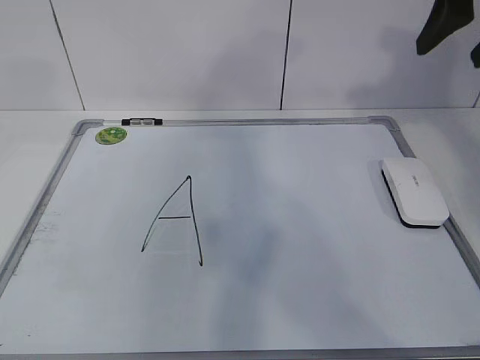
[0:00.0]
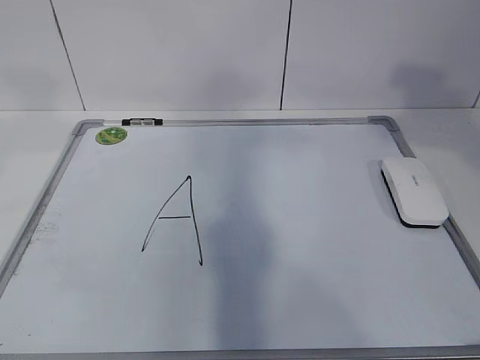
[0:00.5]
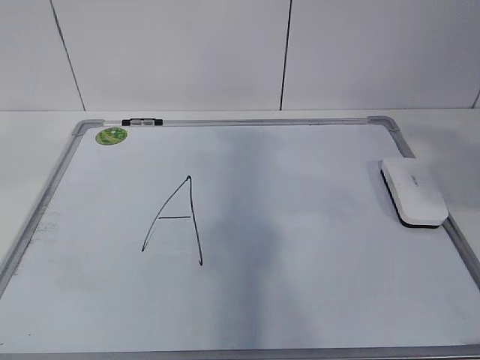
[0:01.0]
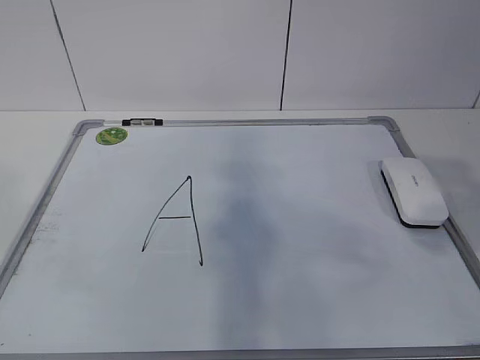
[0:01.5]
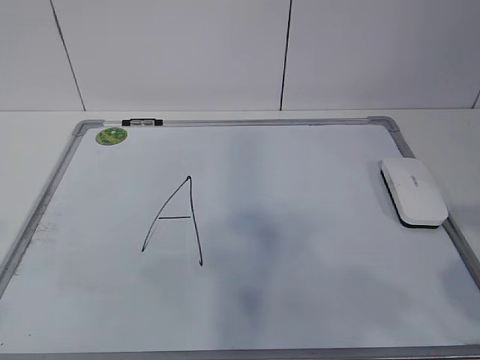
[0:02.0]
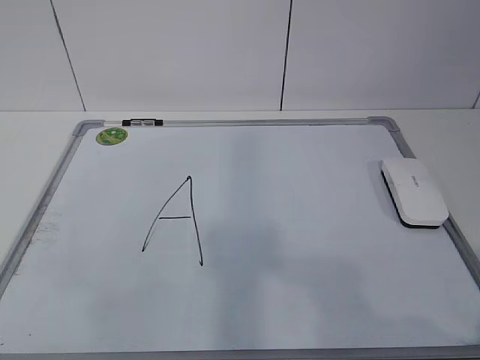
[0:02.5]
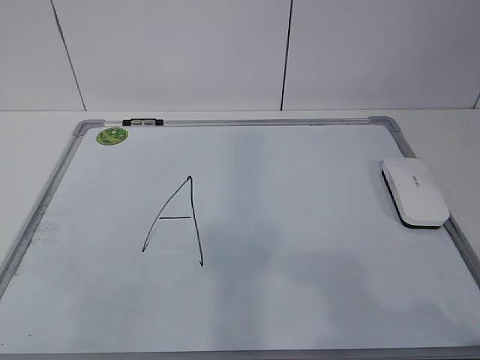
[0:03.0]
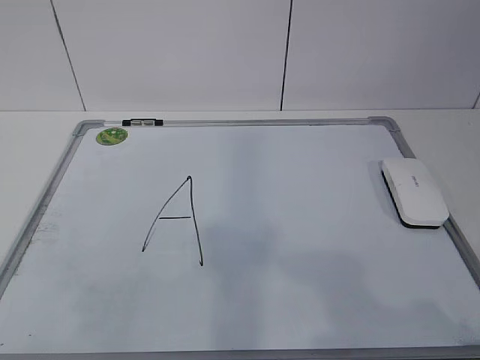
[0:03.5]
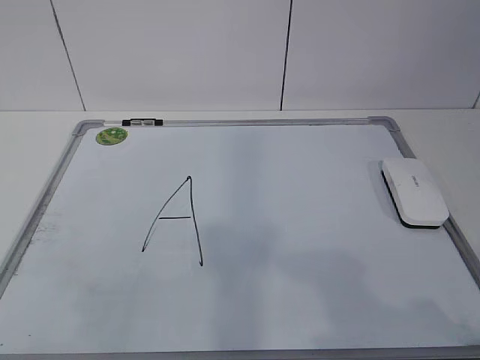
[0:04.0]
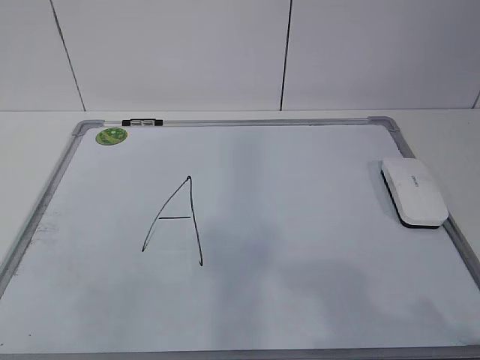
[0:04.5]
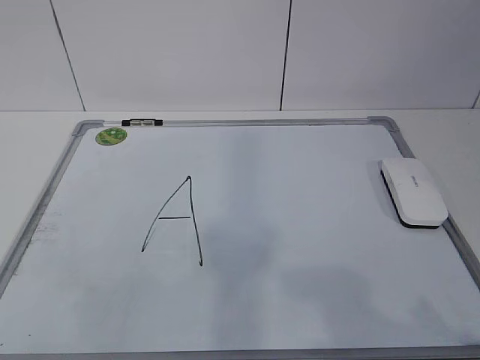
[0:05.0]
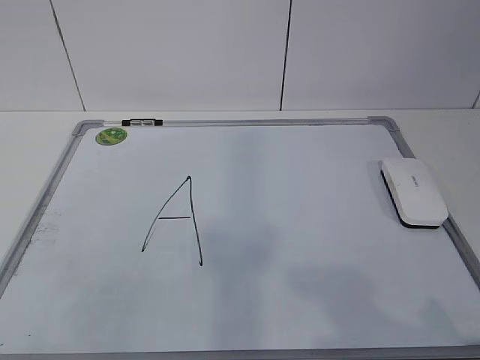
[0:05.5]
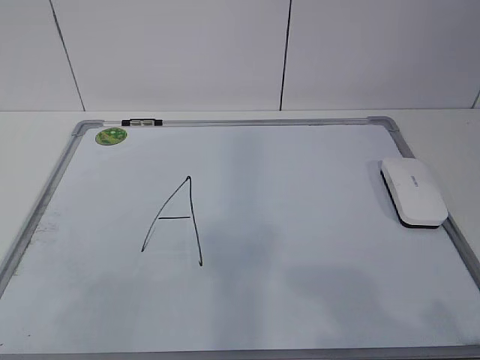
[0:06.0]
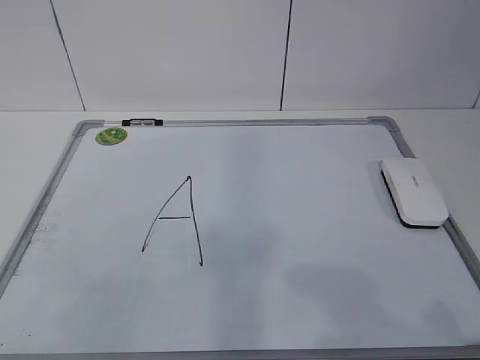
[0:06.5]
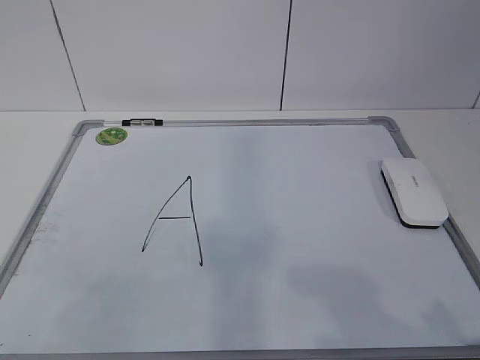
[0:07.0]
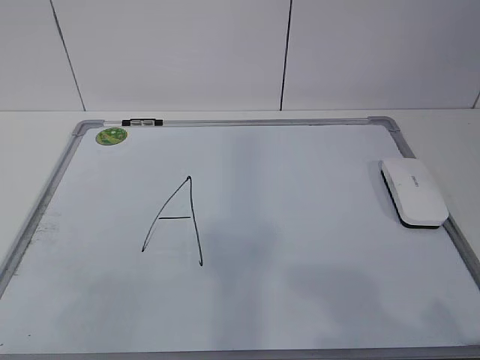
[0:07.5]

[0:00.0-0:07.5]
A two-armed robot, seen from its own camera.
Task of the whole recording: pick up the eraser on the blackboard and erase the letter "a".
0:00.0 to 0:02.0: The right gripper travels backward by approximately 30 cm.

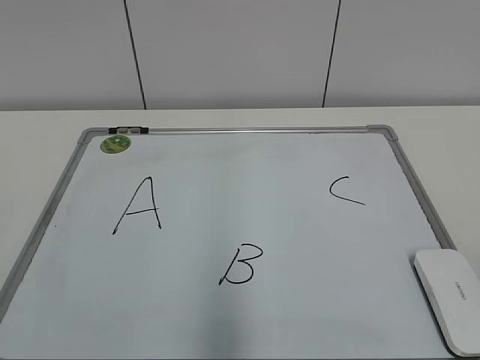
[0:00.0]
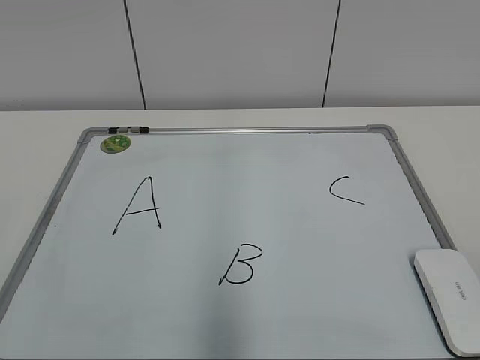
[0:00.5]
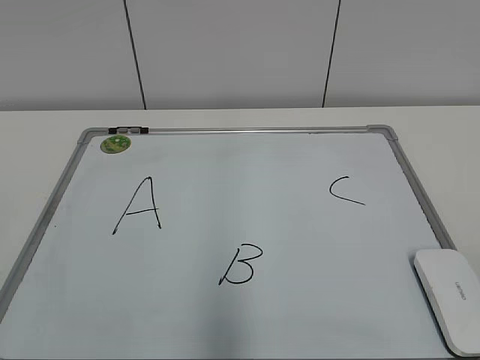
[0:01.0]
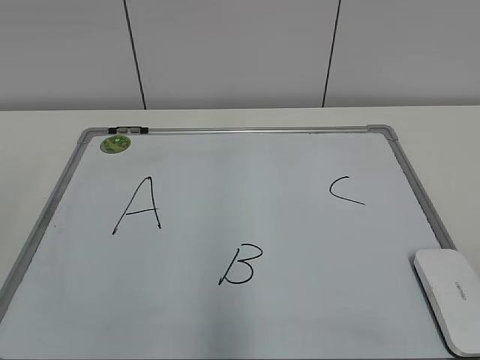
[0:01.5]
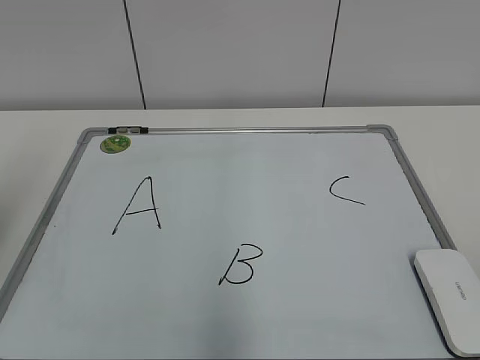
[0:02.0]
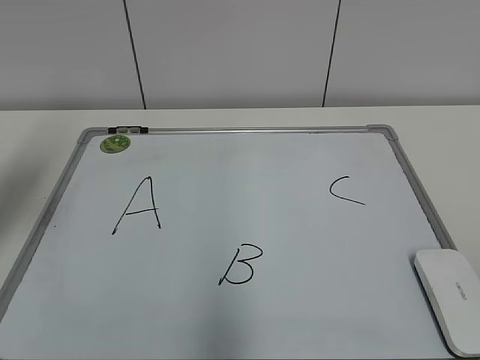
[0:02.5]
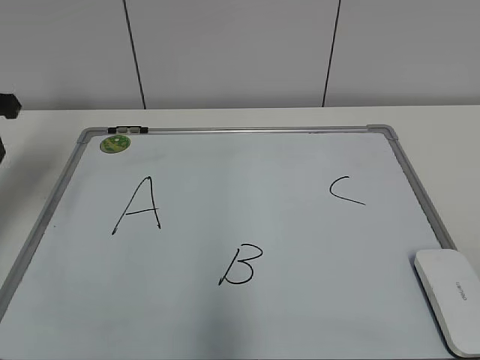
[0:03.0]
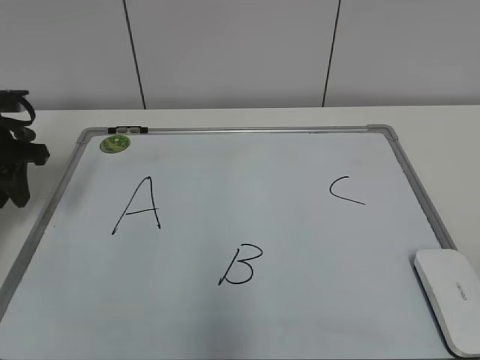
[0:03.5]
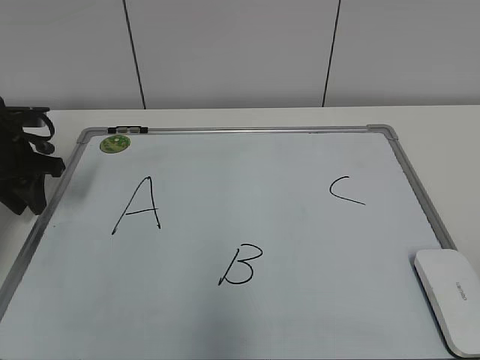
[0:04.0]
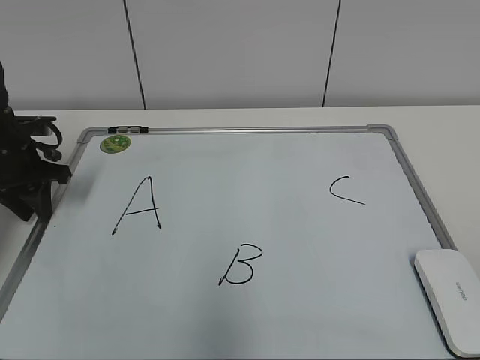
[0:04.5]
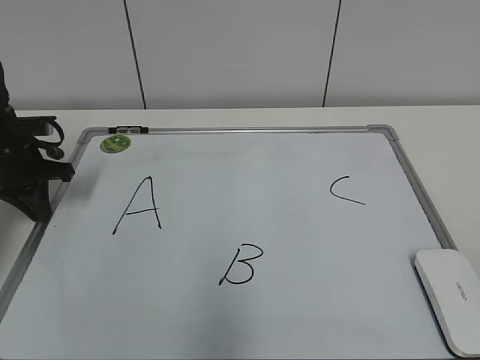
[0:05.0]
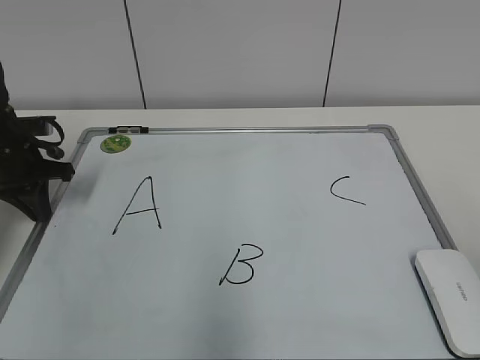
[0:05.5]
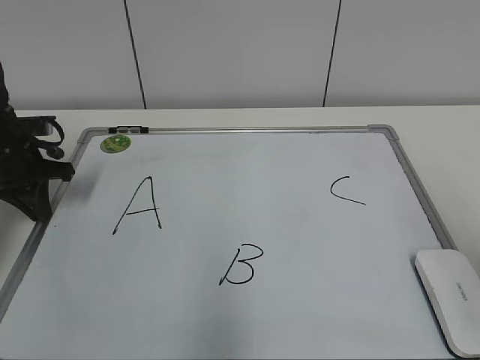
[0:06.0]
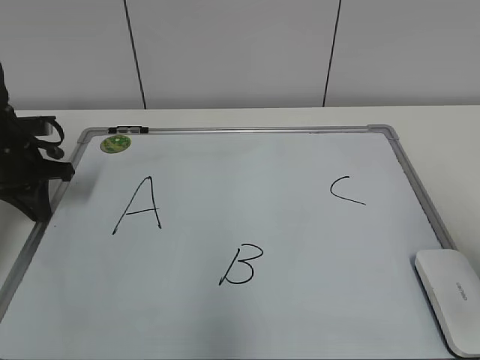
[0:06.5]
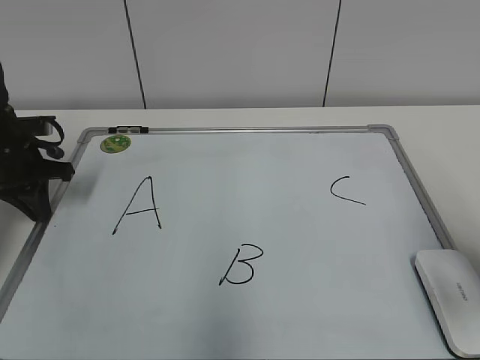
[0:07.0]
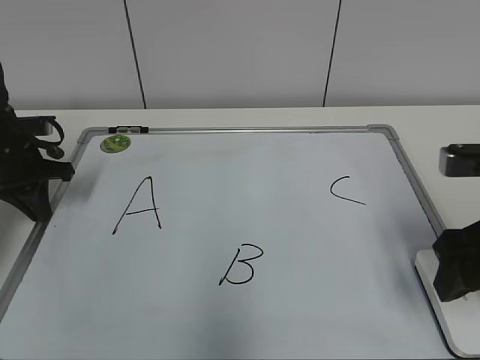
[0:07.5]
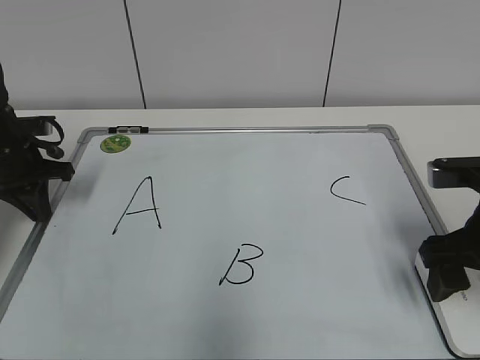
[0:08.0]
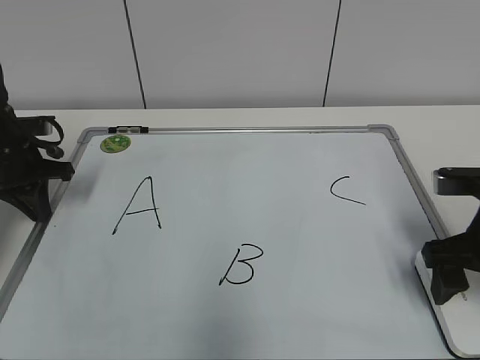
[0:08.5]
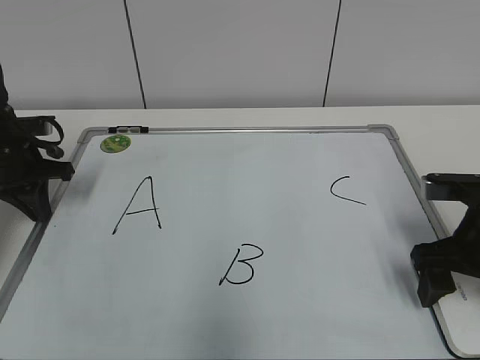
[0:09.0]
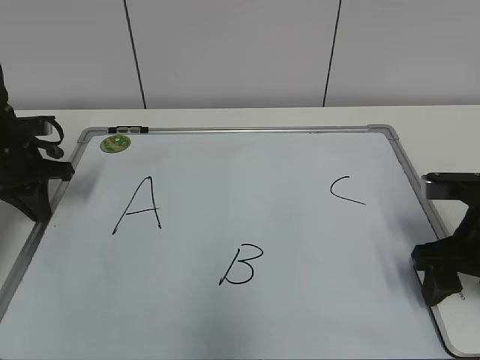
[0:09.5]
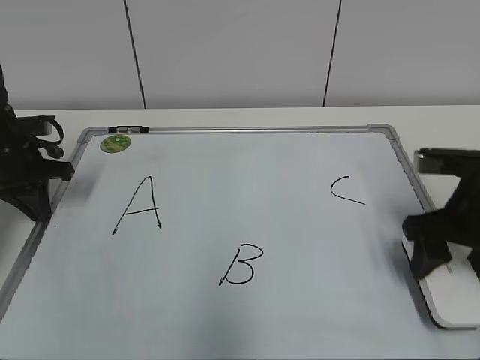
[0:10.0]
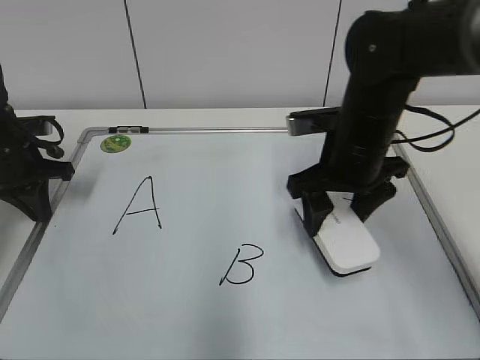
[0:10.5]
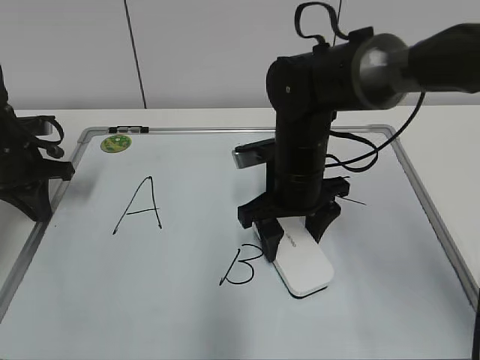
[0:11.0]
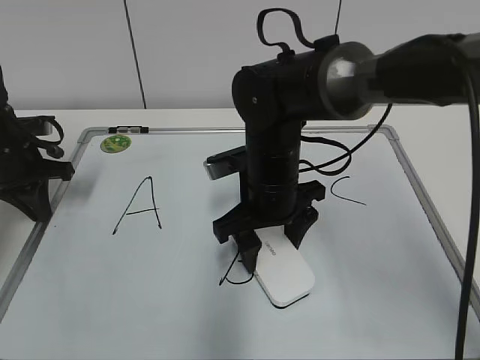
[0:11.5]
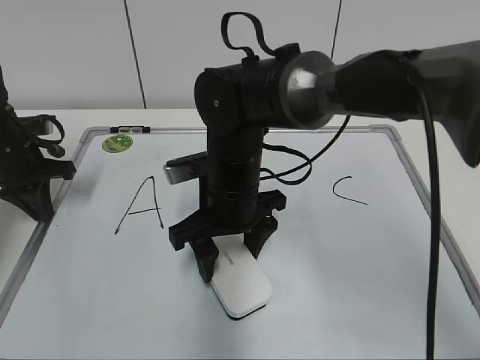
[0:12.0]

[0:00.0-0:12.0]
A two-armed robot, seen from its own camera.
Task of the whole recording: pick up the eraser on the blackboard and erase the letter "B".
Step, 0:00.0 to 0:05.5: Hold the drawing board steady with your left hand.
Step, 0:06.0 to 0:09.5: Grab the eraser with your right hand.
0:02.0 to 0:04.0: The left gripper goes some 25 cm forward and downward.
0:04.0 to 0:06.0: The left gripper closes.
0:06.0 to 0:08.0: The right gripper is displaced forward and downward by approximately 20 cm, and opens its fingers.
0:08.0 to 0:10.0: The right gripper closes up.
0:10.0 to 0:12.0: The right gripper is displaced to the left by some 25 cm.

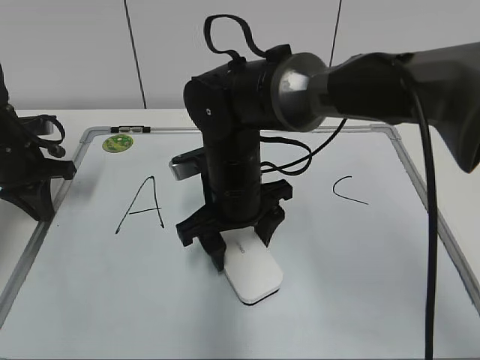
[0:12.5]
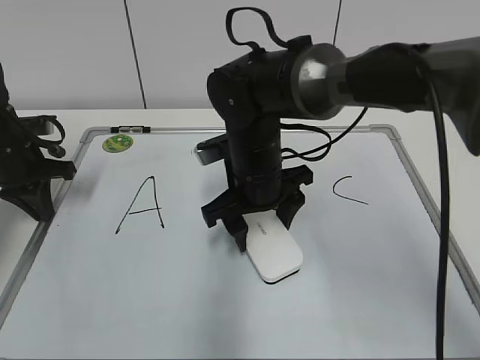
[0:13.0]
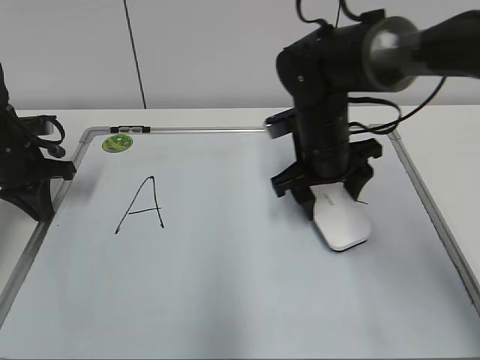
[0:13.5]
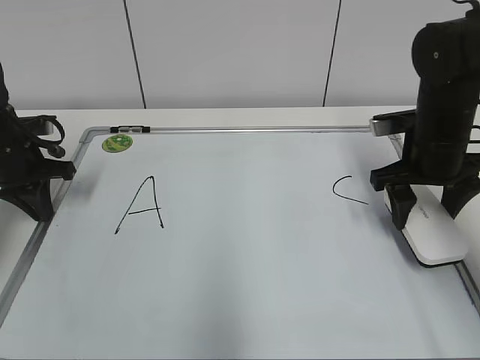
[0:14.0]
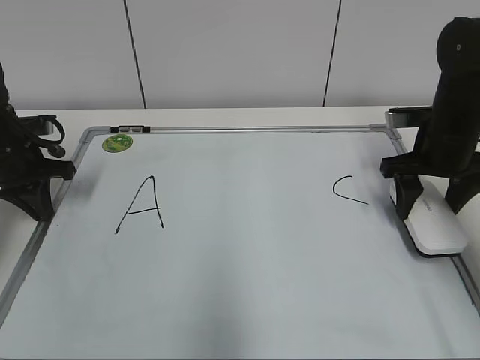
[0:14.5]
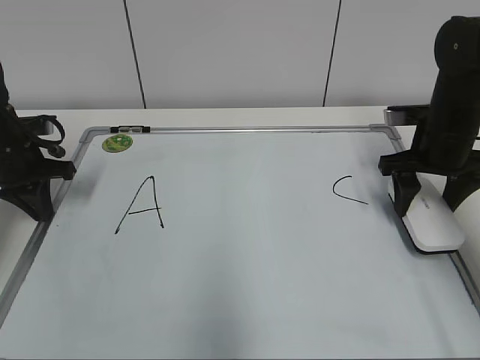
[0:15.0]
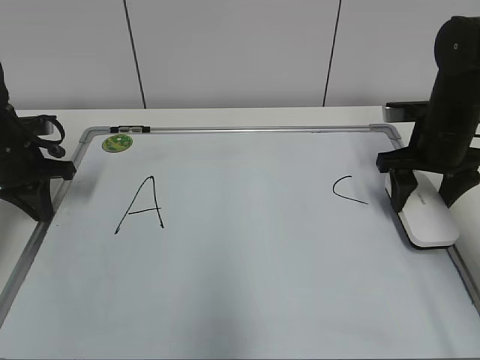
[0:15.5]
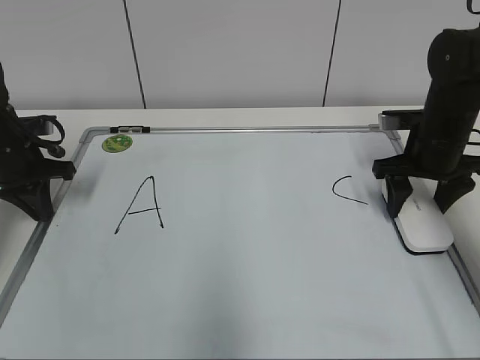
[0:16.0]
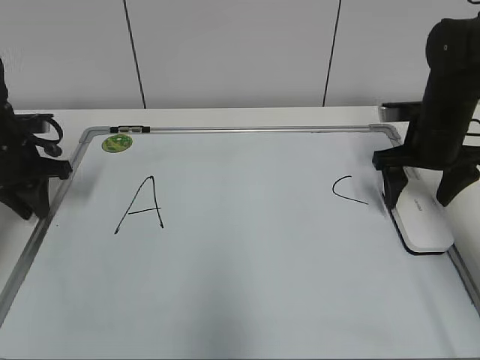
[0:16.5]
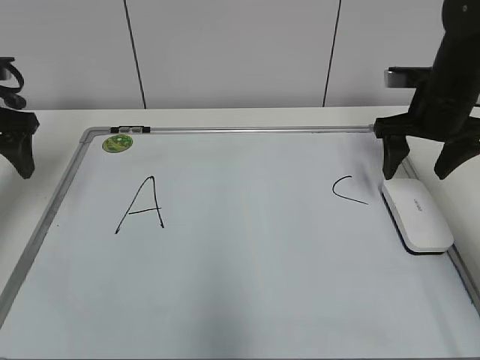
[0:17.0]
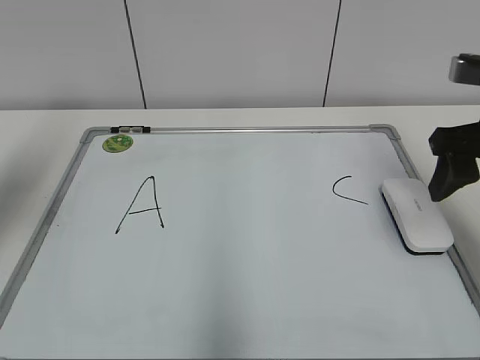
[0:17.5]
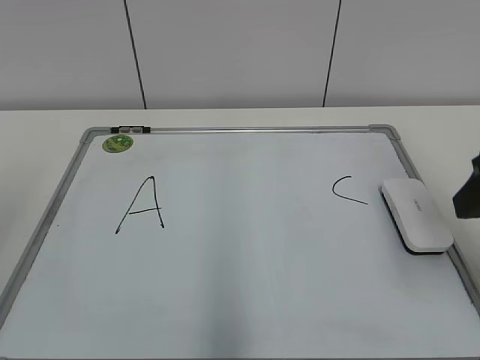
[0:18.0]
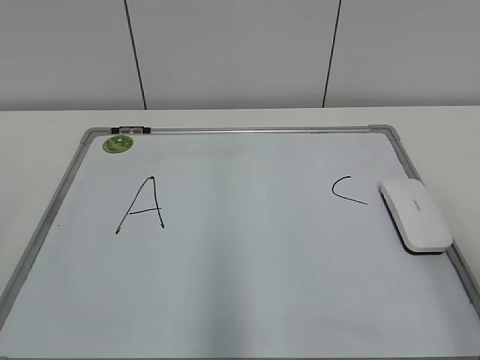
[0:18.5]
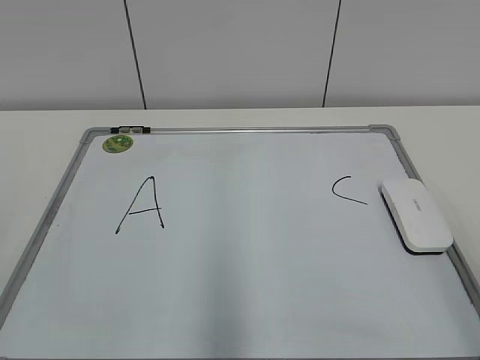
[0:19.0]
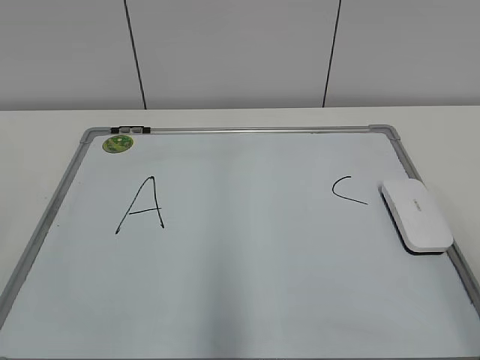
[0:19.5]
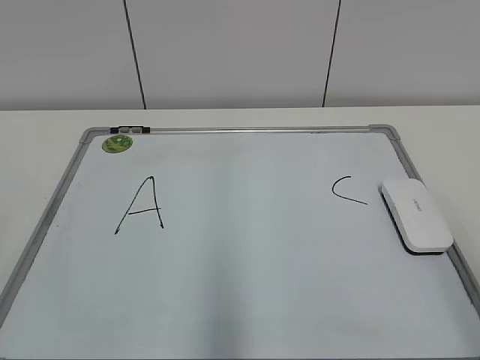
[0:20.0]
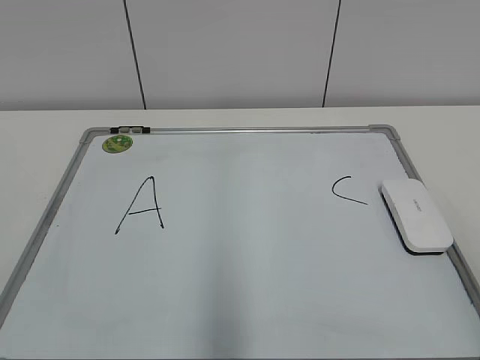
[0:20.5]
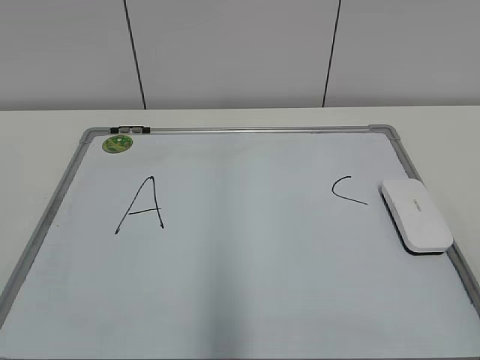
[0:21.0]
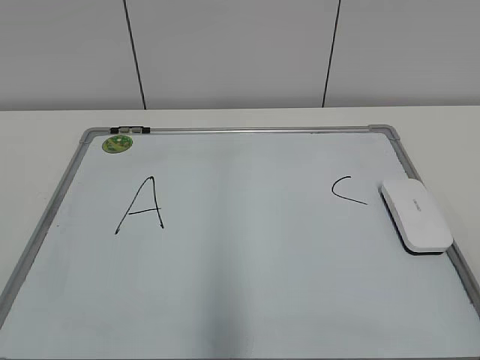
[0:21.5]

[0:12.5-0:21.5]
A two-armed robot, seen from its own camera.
Task of the whole recording: pick up the eraser on the blackboard and erase the letter "B".
0:12.5 to 0:14.5: The right gripper travels to the right by some 25 cm.
0:14.5 to 0:17.0: The right gripper opens its fingers. The left gripper shifts some 10 cm upward, and opens up.
0:17.0 to 0:19.5: The two grippers go approximately 35 cm backward. The right gripper closes its fingers.
